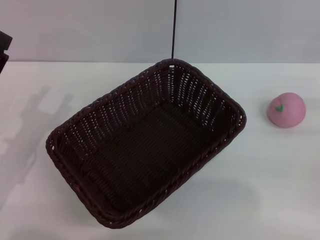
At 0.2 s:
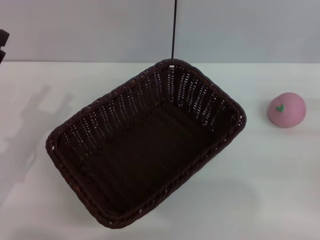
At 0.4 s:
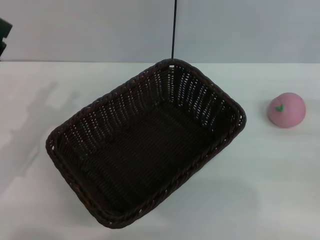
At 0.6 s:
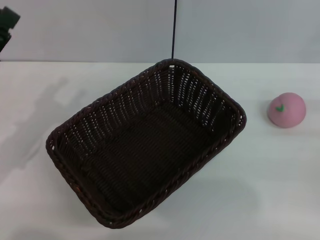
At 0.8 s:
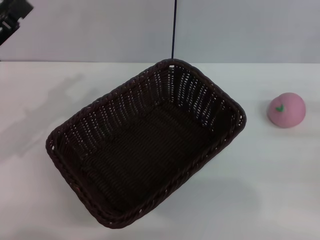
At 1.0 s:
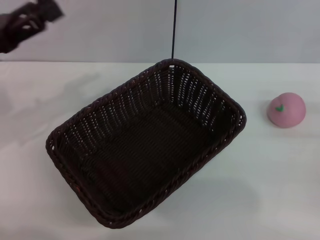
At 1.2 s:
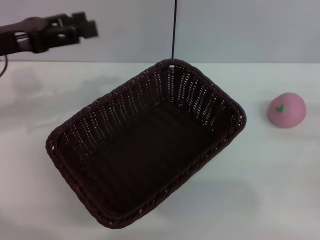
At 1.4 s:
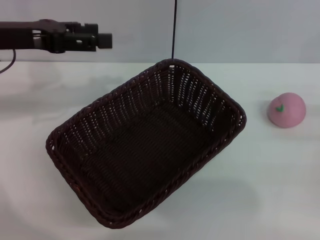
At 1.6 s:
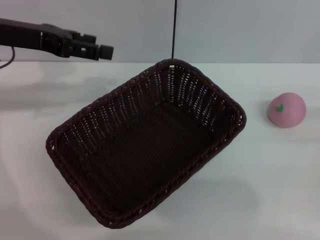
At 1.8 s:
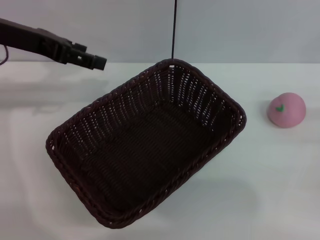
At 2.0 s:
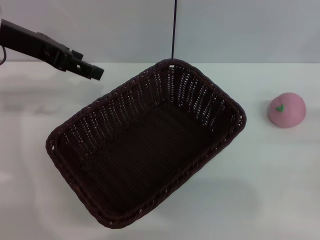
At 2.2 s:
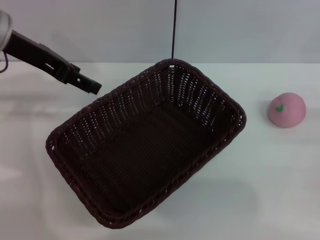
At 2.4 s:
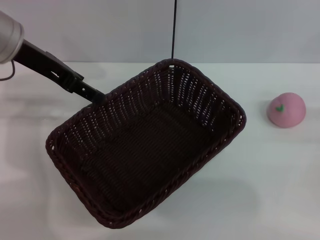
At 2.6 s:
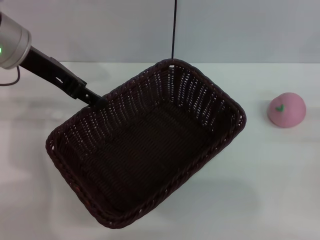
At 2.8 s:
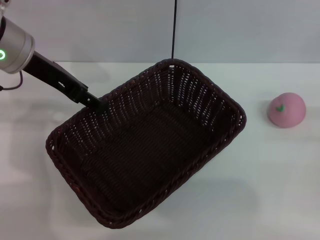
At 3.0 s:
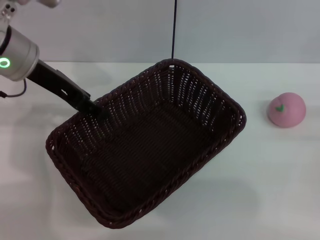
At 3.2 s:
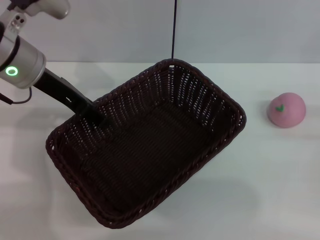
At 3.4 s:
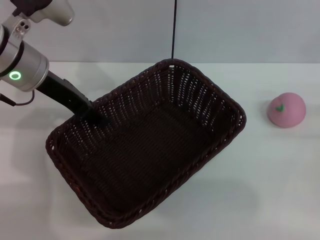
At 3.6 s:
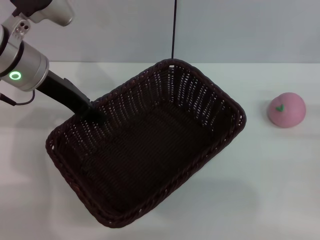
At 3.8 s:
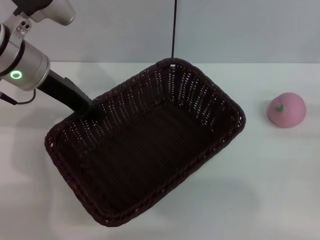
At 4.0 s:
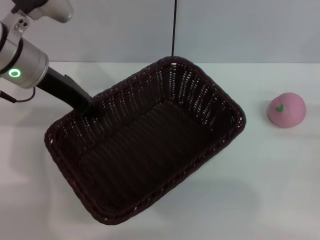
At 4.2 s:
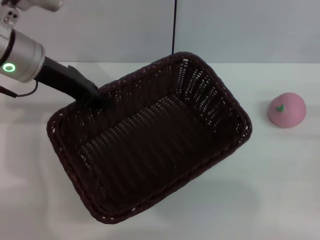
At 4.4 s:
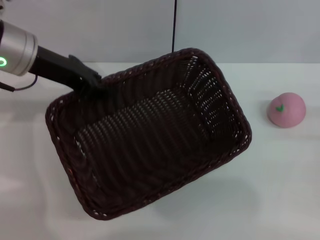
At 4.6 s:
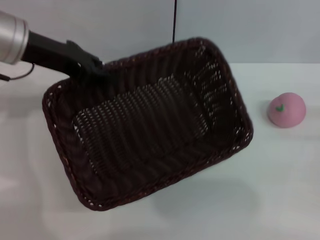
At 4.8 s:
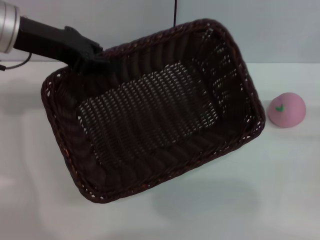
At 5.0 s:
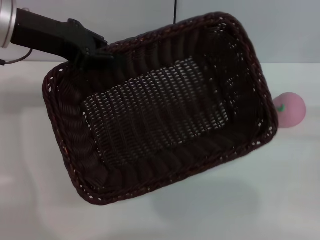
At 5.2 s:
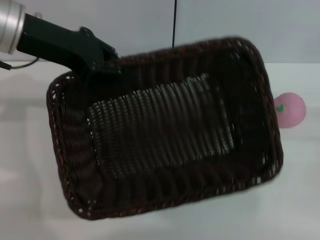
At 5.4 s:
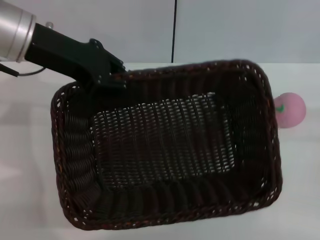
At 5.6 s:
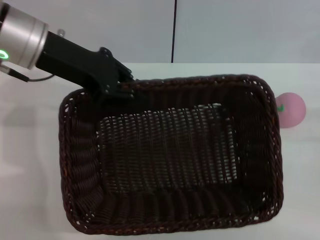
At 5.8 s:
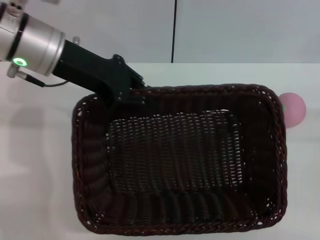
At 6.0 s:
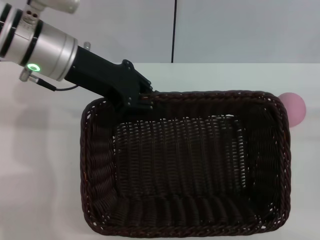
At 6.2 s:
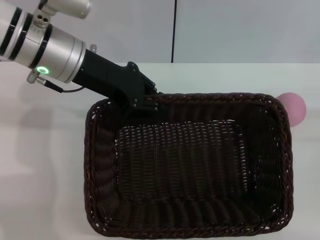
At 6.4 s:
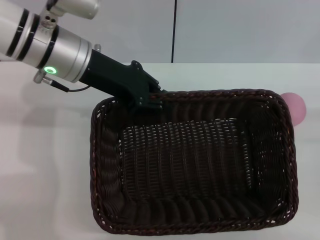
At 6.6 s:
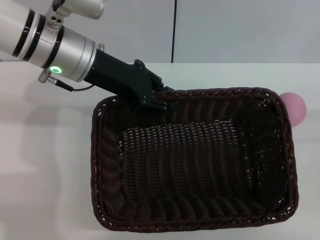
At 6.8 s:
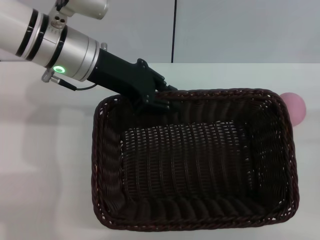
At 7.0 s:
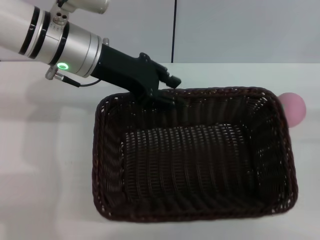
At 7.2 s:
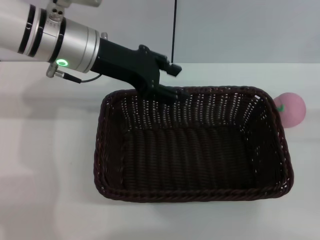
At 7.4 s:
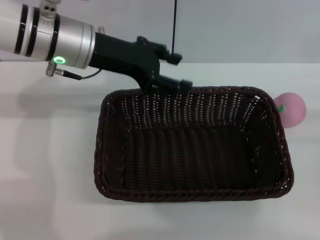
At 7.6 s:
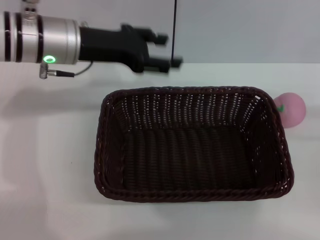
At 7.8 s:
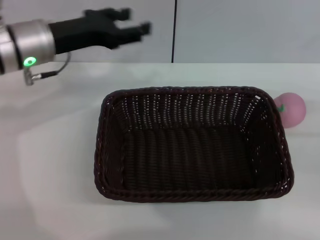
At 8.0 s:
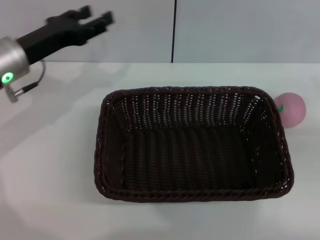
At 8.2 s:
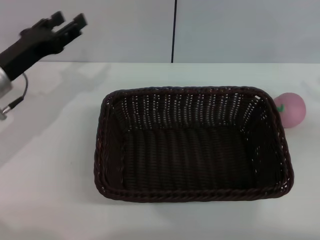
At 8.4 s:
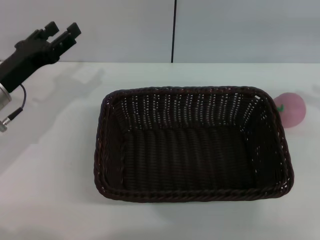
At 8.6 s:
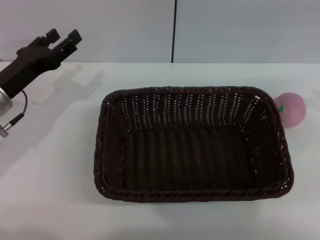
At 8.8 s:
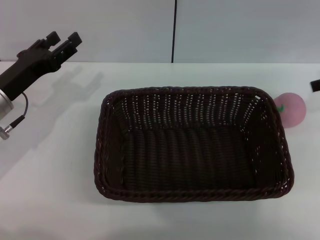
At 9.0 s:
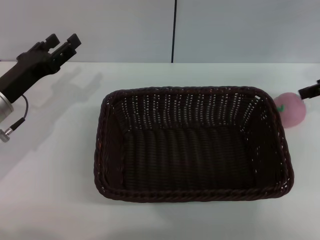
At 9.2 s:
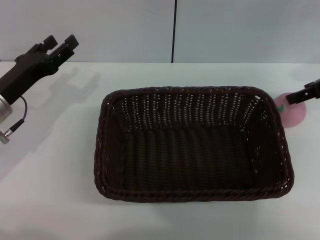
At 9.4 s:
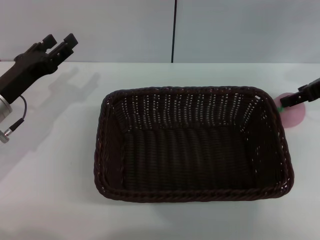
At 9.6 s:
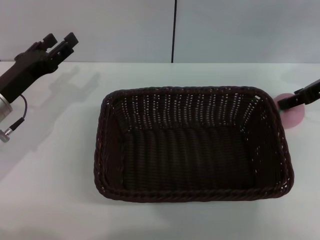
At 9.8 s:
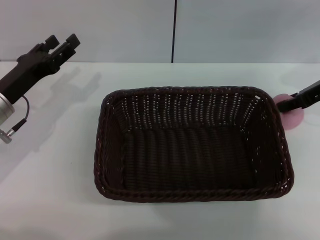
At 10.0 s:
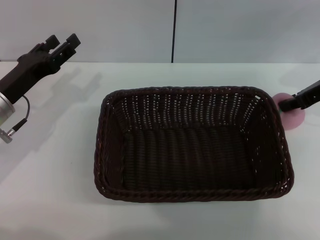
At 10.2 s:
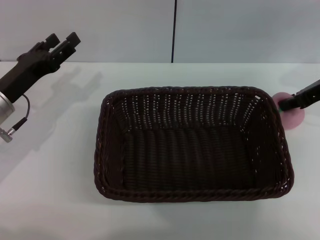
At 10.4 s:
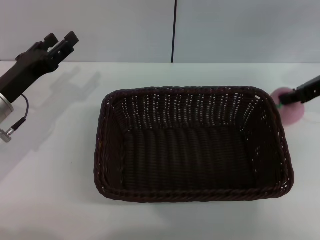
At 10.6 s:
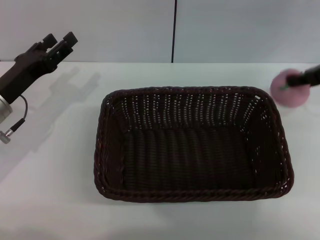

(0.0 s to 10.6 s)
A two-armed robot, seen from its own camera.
Step, 0.0 s - 3.8 s: Pick up the dark basket with the left gripper.
0.0 s - 1.6 s: The left gripper travels upward and forward by some 20 cm.
1.6 s - 3.0 s: The left gripper heads to the right, covering about 5 cm.
3.0 s - 4.6 s: The left gripper closes up.
4.6 s - 6.0 s: The left gripper is displaced to the right by about 5 cm.
6.0 s - 7.6 s: The left gripper opens up.
7.6 s - 9.0 s: The right gripper moves upward and forward, roughly 20 cm. Meanwhile the left gripper is displaced downward, to the left and backward by about 15 cm.
9.0 s - 10.6 s: The right gripper closes its fingers.

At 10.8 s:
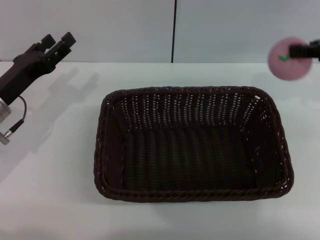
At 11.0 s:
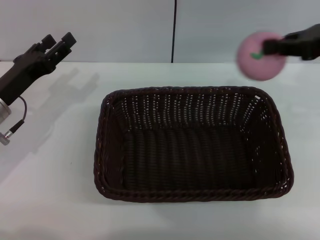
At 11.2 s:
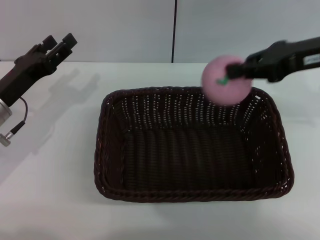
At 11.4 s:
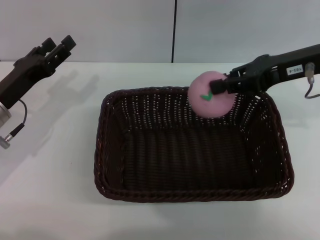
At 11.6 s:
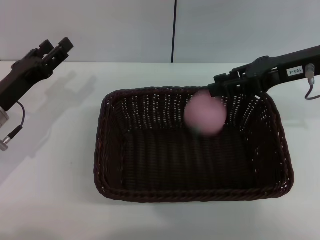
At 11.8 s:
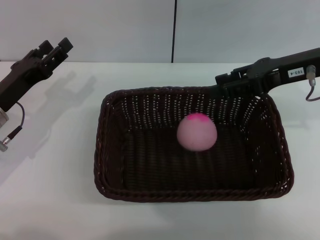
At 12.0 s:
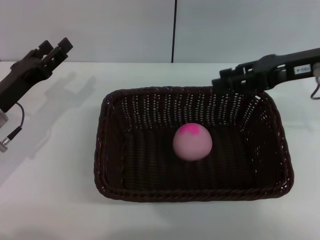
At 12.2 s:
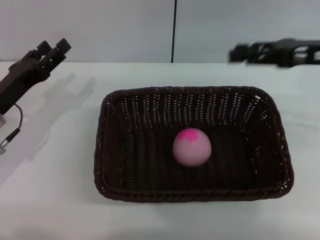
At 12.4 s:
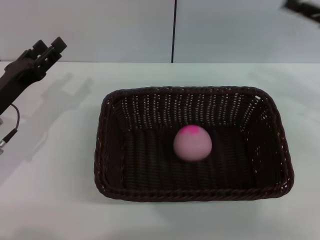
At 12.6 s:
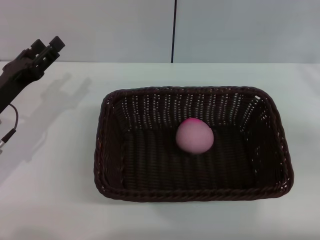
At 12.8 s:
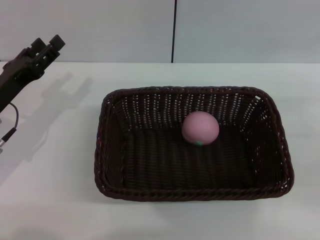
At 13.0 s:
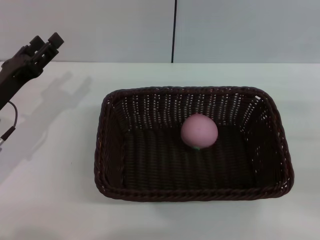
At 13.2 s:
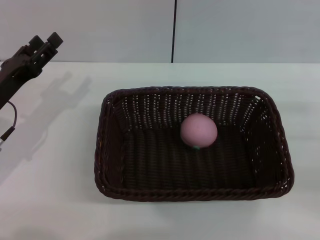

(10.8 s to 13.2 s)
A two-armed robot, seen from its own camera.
10.8 s - 12.0 s: The right gripper goes approximately 5 cm to the left, and opens.
12.0 s - 13.2 s: The right gripper is displaced to the right, downward and backward by approximately 20 cm.
